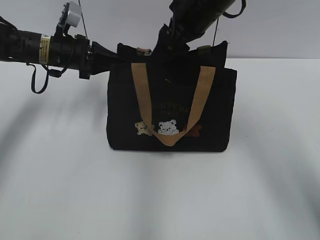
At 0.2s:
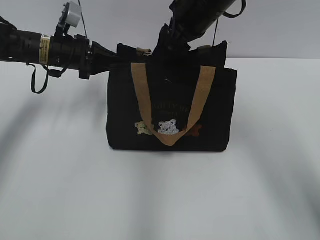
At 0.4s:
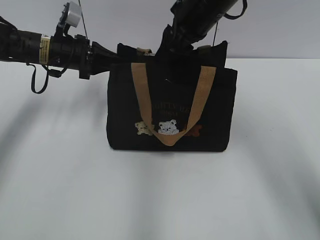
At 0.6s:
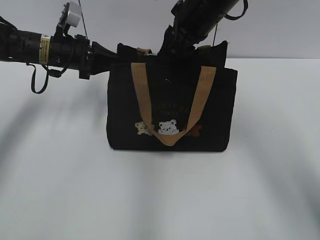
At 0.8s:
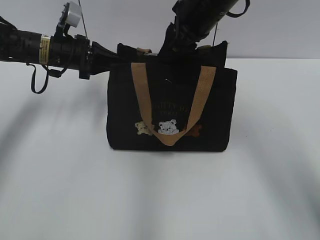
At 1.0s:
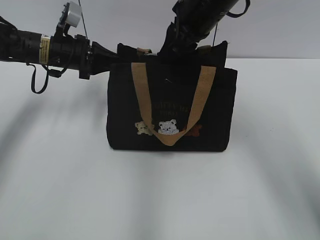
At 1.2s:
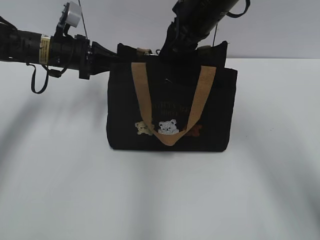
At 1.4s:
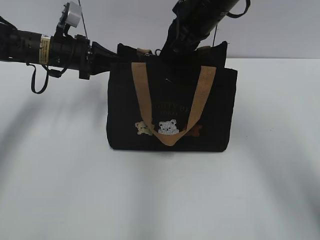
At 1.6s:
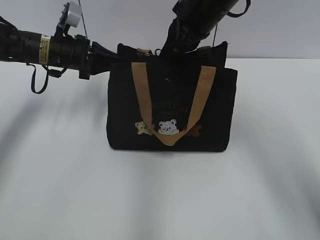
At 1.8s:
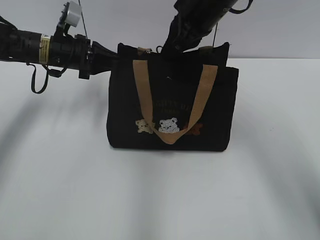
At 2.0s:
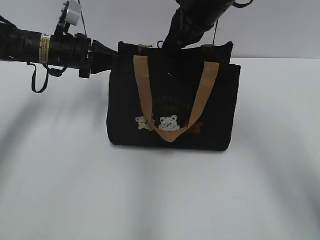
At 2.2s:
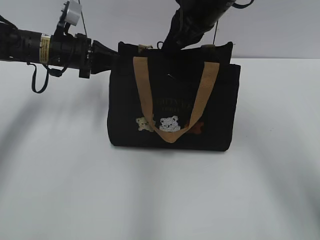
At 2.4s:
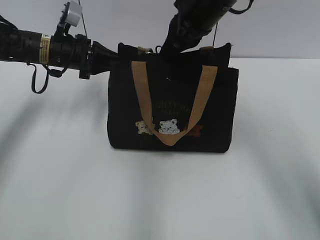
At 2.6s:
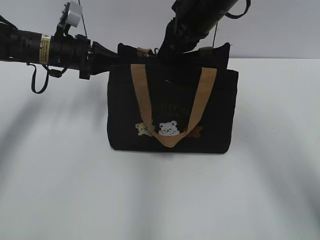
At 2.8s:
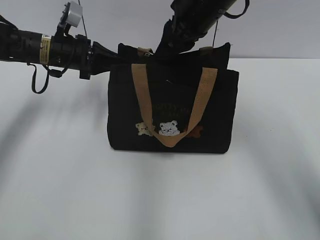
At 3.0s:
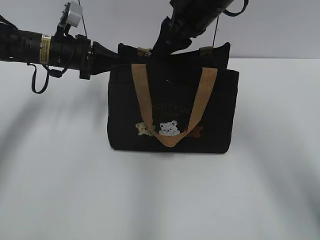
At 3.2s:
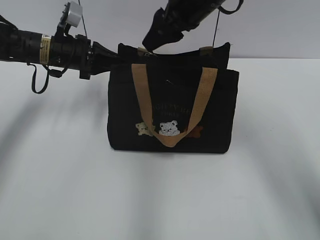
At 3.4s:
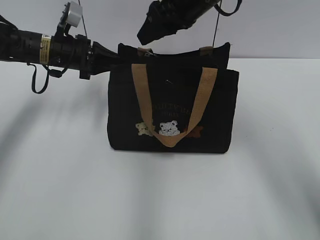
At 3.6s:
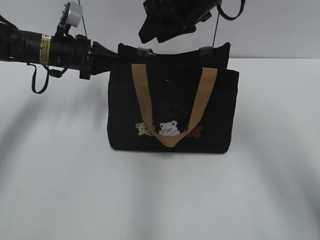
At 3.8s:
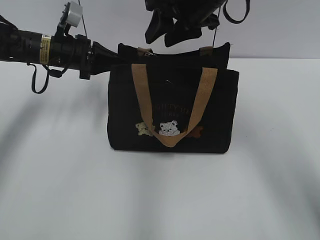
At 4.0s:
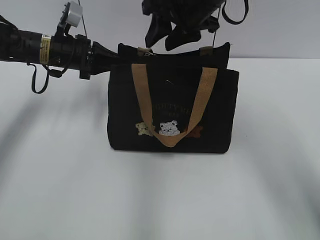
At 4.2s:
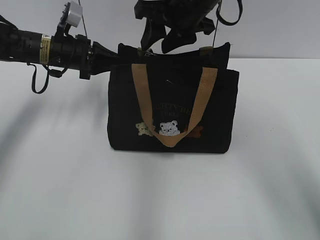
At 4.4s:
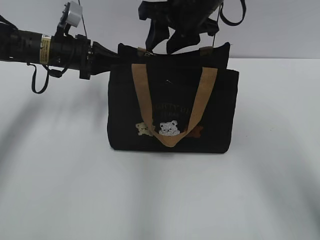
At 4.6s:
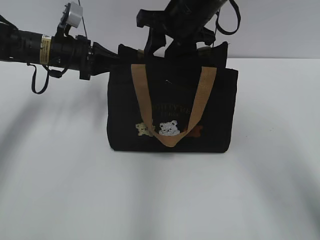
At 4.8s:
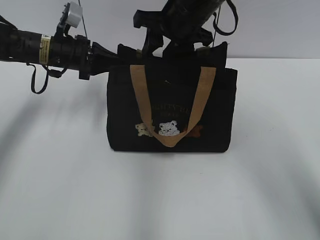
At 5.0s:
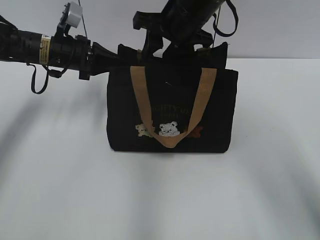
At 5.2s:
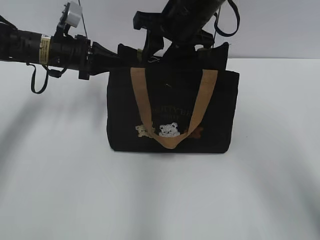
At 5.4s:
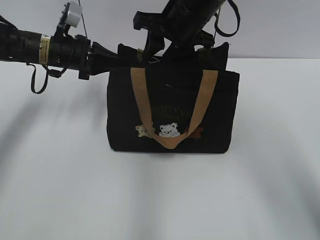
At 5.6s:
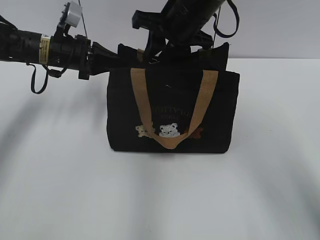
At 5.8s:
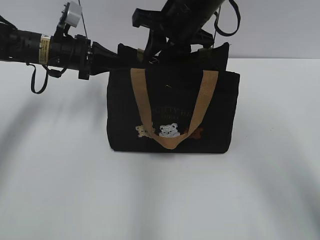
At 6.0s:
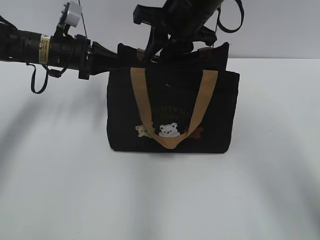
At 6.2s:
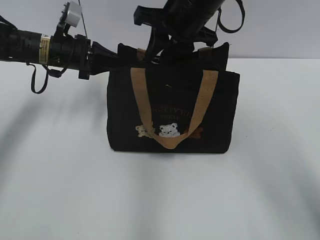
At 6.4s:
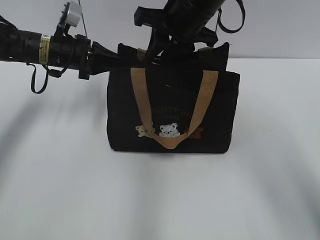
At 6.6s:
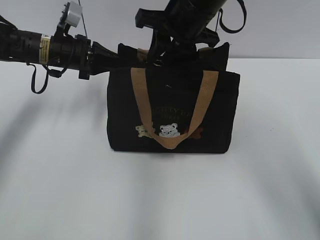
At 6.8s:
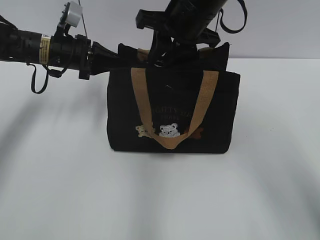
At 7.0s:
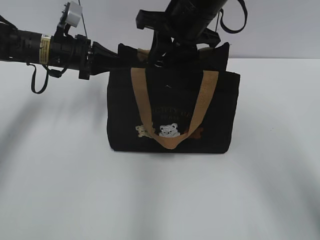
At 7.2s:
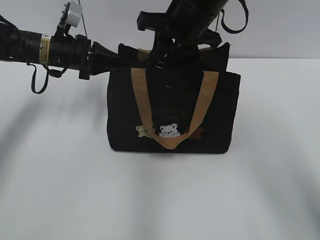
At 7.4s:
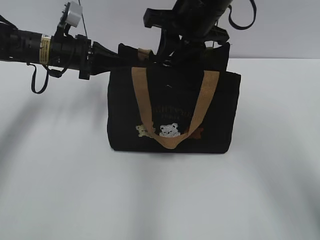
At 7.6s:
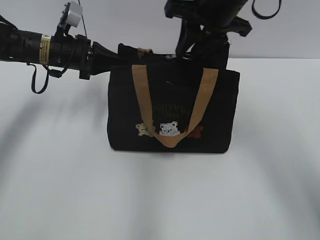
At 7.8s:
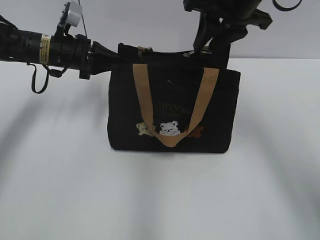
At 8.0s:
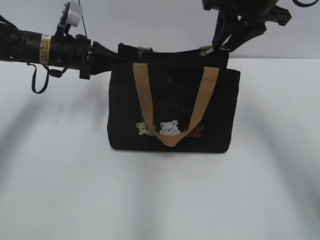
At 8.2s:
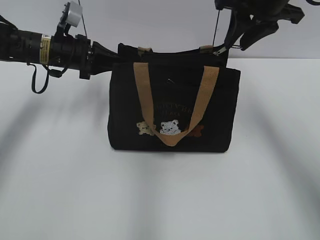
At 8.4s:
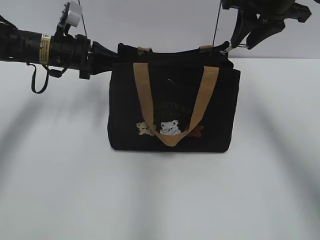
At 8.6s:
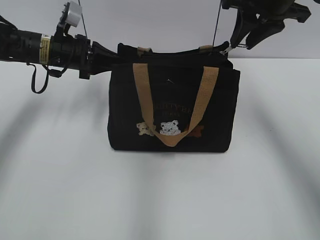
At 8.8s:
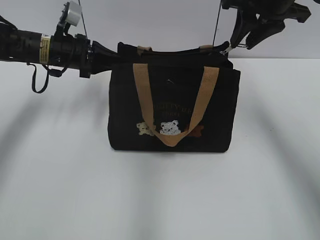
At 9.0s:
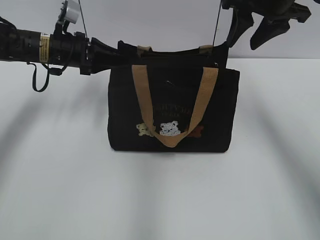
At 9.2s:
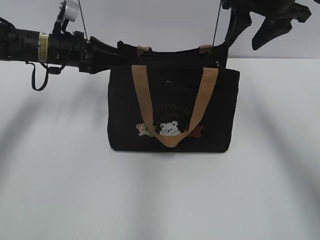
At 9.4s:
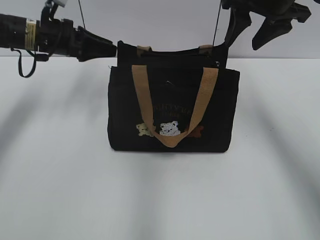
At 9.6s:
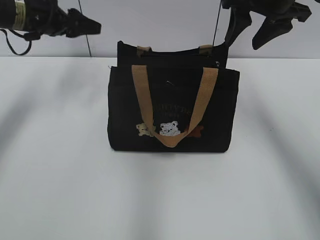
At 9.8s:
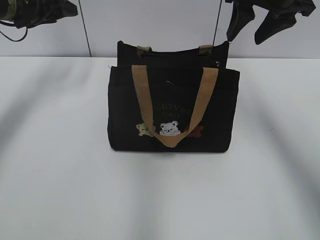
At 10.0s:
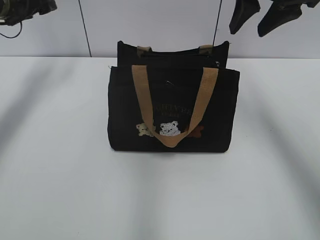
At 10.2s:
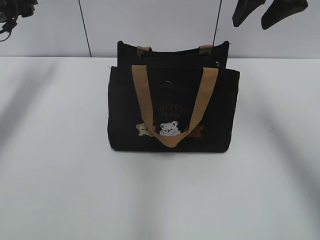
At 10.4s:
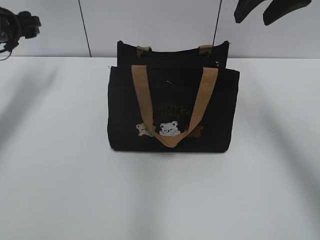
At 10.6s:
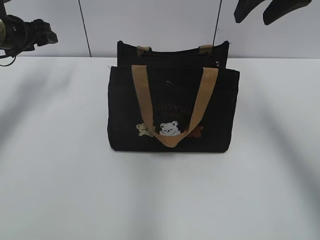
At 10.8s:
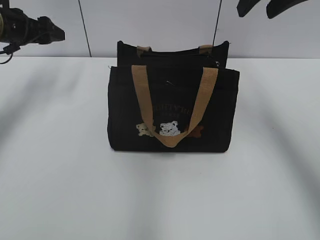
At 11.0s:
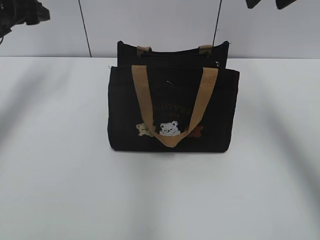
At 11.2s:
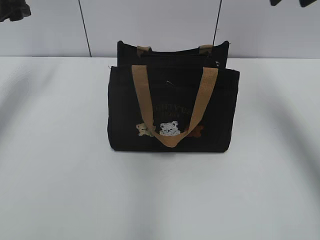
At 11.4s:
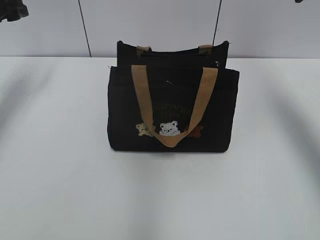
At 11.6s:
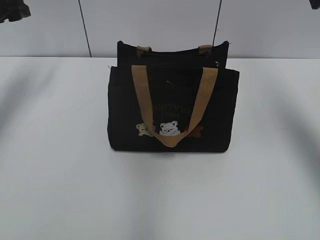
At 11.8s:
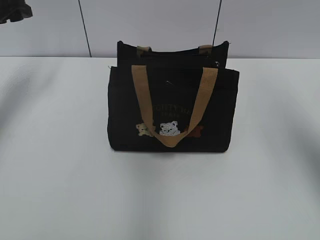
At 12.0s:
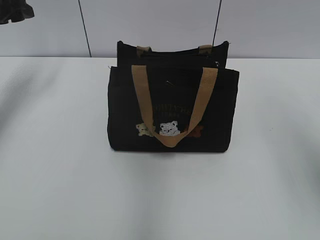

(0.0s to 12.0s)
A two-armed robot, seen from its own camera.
Step, 0.0s - 8.8s: Pull open the zipper with your right hand.
Step, 9.0s - 9.4s: Hold the bag with your left hand.
0.0s - 1.6s: The right gripper closes.
1.6s - 3.0s: The right gripper opens its fingers.
4.4s - 7.6s: The grippers stay close to where they were, moving slightly.
7.6s - 9.0s: The right gripper moves to the right, some 10 cm.
9.0s - 10.4s: The right gripper ends up roughly 5 cm from where it was. Meanwhile the left gripper travels to the left by some 10 cm, and opens its fingers.
10.4s - 12.0s: The right gripper heads backward and to the right, covering some 20 cm.

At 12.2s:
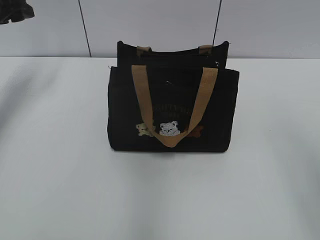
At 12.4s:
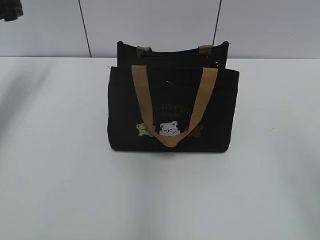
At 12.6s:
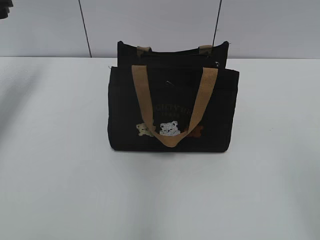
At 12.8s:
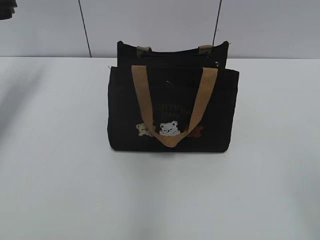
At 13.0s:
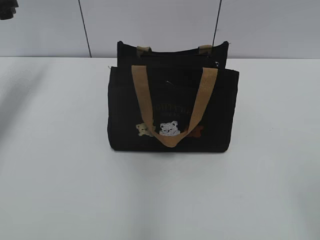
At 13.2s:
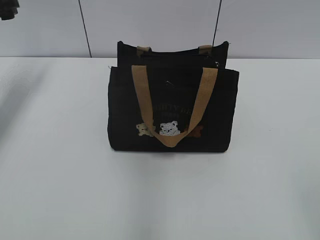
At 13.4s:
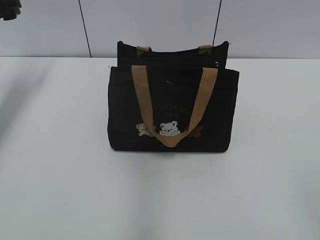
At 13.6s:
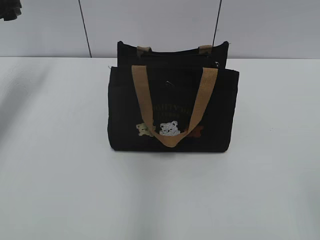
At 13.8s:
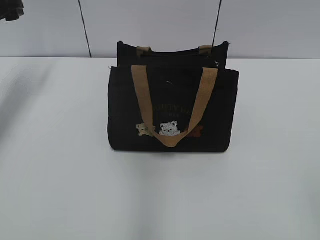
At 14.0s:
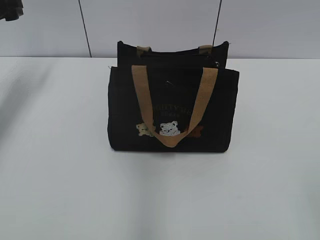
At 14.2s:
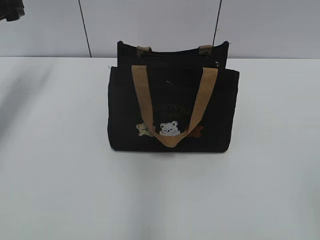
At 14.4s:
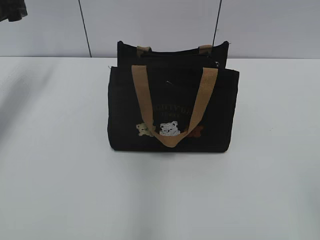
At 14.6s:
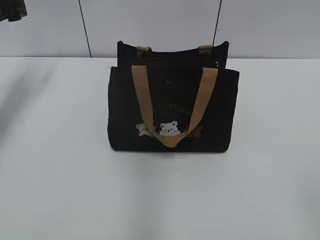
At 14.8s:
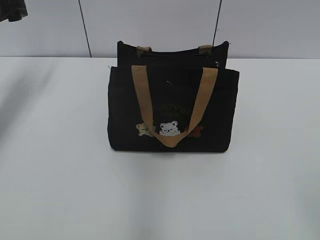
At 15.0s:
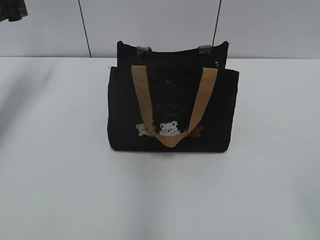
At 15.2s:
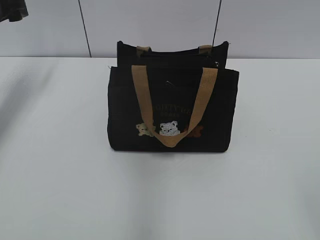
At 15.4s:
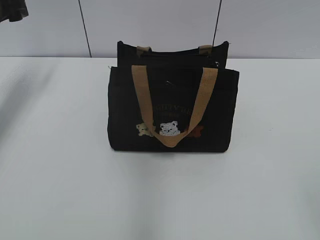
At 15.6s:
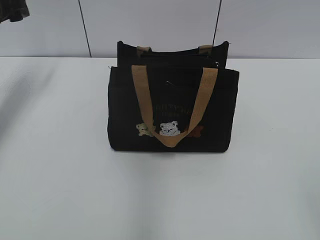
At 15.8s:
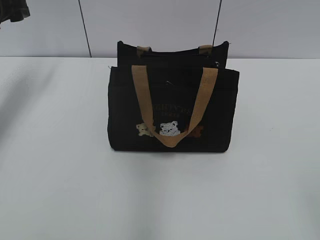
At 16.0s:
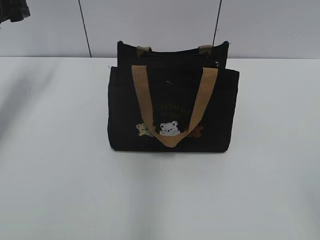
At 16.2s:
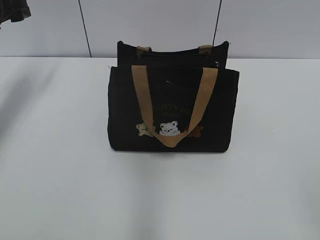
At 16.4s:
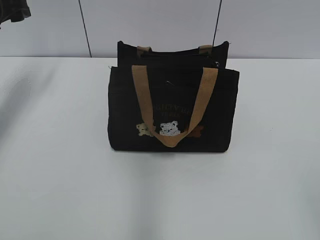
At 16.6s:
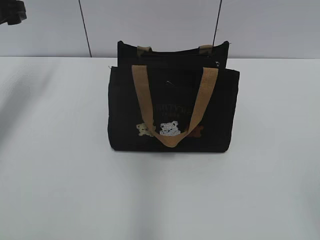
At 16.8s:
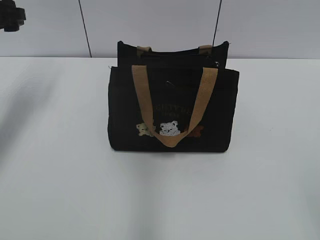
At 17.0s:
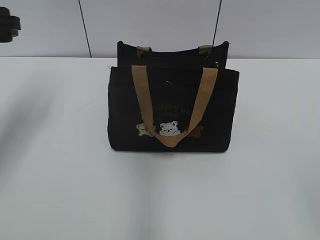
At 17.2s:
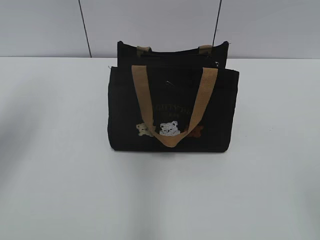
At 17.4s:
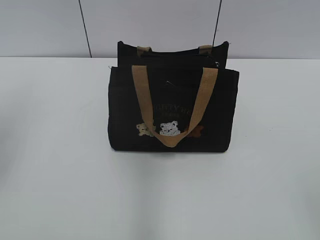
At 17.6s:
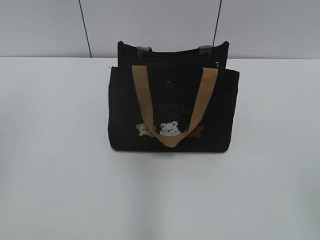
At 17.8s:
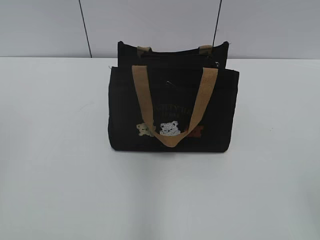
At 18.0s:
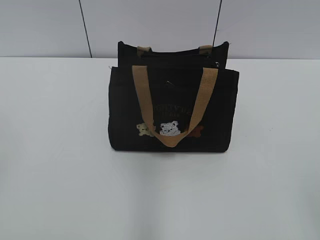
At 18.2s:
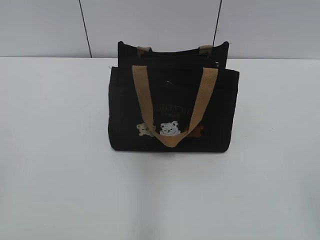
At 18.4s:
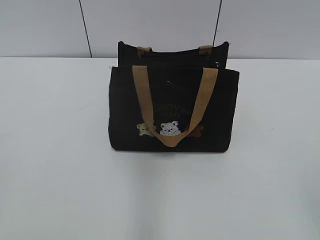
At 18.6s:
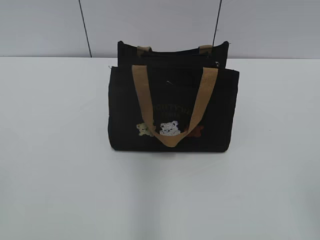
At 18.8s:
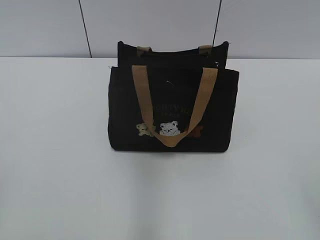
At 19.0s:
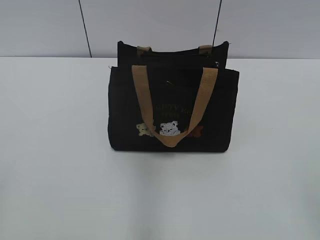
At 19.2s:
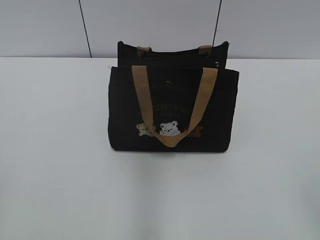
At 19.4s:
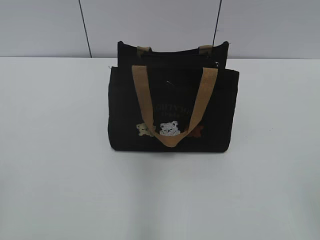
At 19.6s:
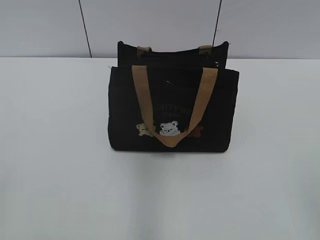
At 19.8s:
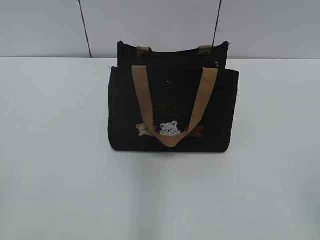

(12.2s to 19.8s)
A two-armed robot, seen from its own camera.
15.2s - 16.8s: The grippers make only small movements.
16.8s - 18.2s: The left gripper moves backward, some 40 cm.

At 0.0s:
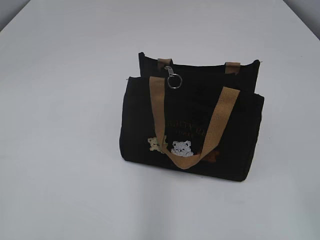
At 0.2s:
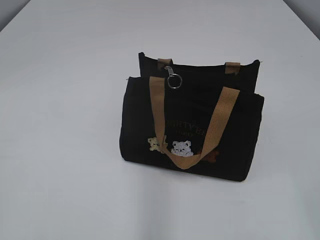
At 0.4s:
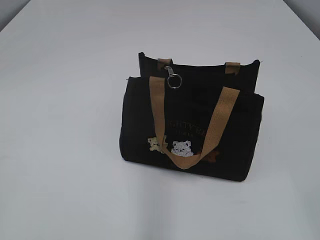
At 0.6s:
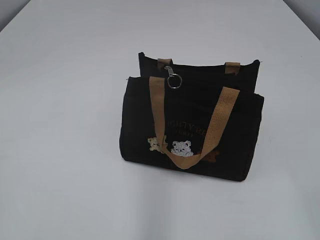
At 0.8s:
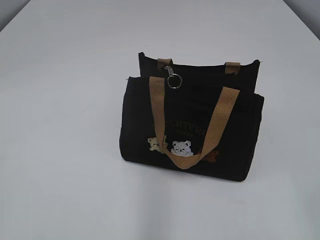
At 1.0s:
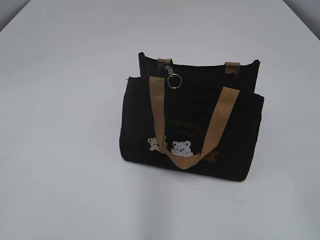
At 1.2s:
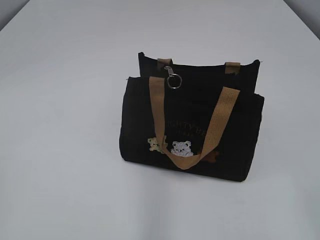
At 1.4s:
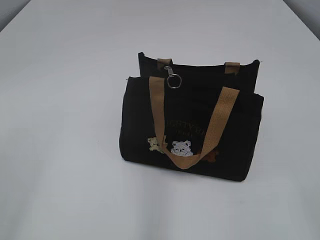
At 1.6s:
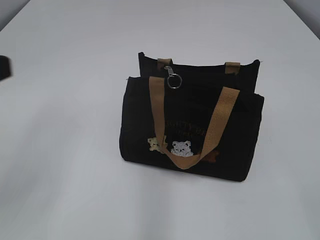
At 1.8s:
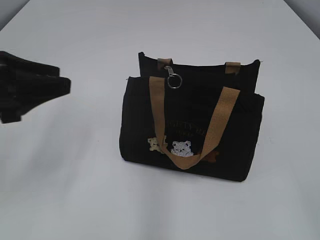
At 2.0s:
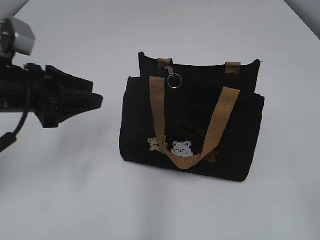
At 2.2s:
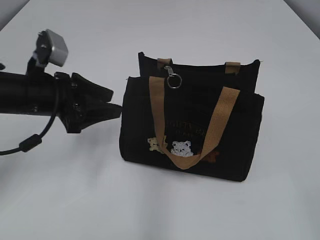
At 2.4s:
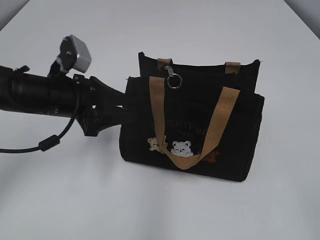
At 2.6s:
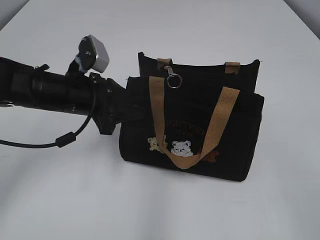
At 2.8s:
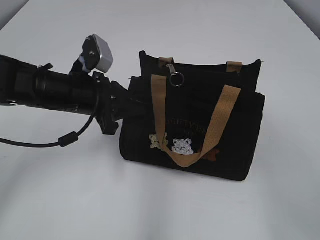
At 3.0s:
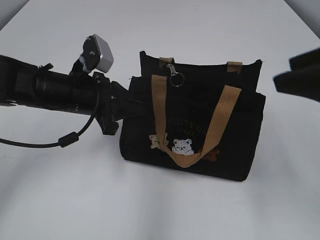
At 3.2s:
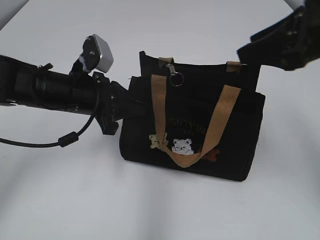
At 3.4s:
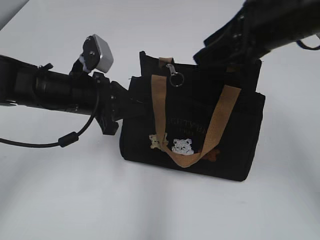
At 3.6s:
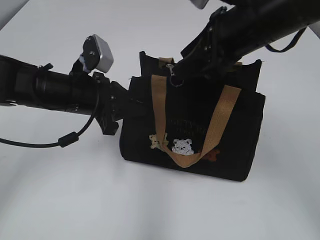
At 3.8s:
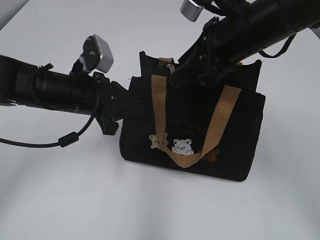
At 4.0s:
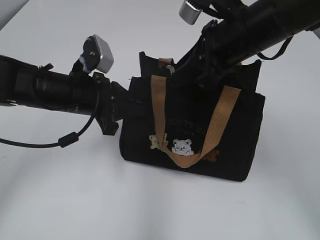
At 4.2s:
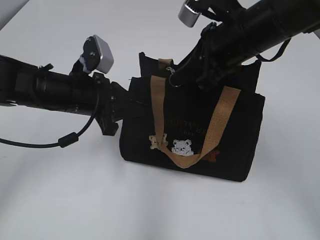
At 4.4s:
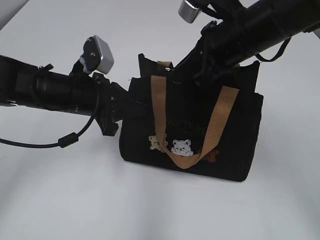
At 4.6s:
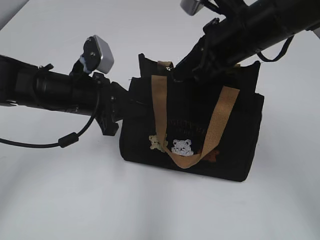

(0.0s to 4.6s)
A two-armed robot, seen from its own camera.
1.6s - 3.0s: The left gripper heads forward, downward and to the right, covering approximately 20 cm, and closes up. The right gripper shifts approximately 20 cm forward.
3.0s - 4.6s: The right gripper goes approximately 15 cm forward and to the left, and closes.
